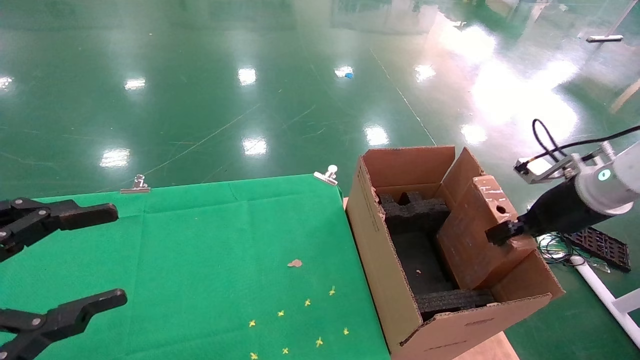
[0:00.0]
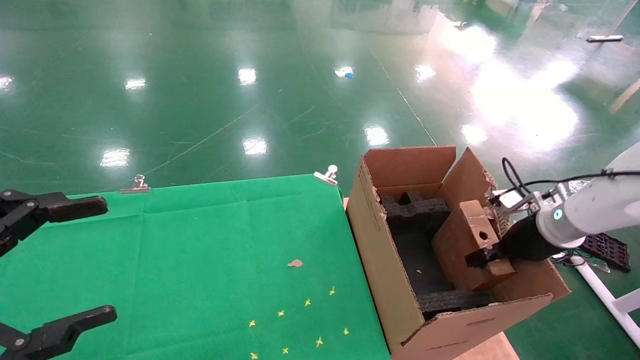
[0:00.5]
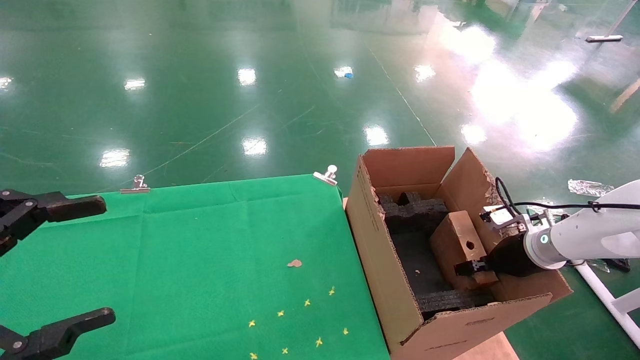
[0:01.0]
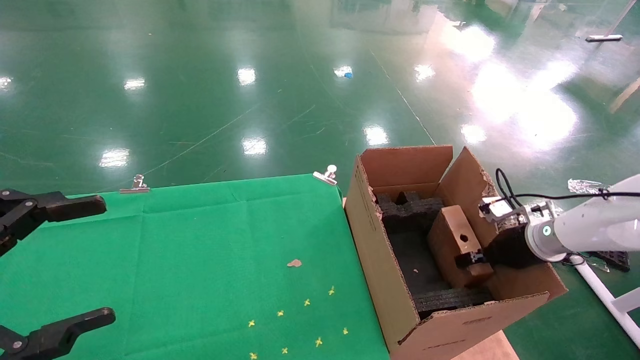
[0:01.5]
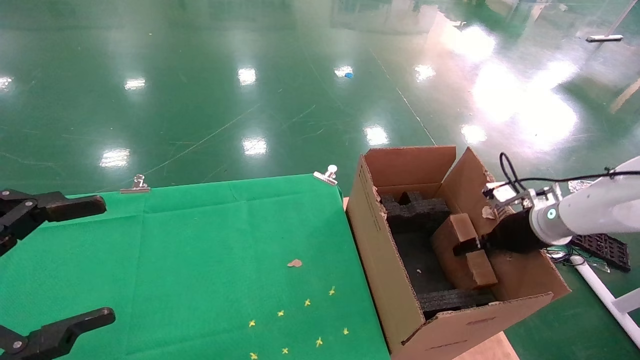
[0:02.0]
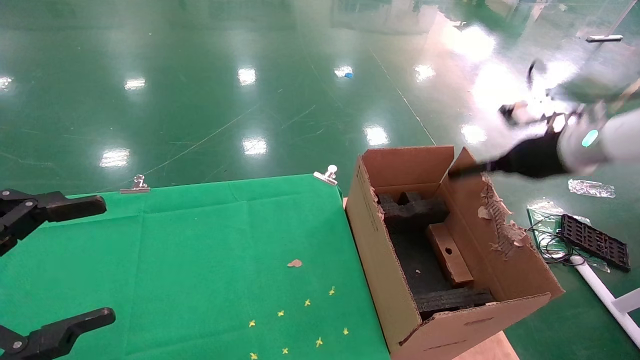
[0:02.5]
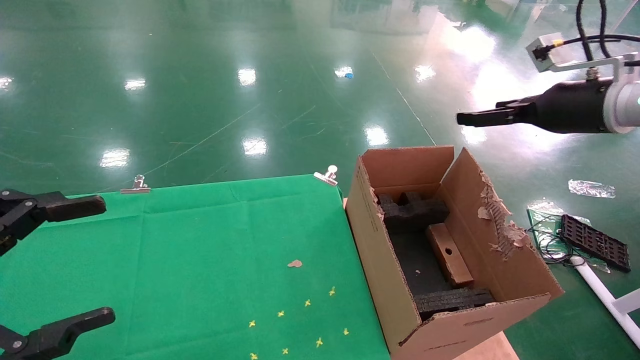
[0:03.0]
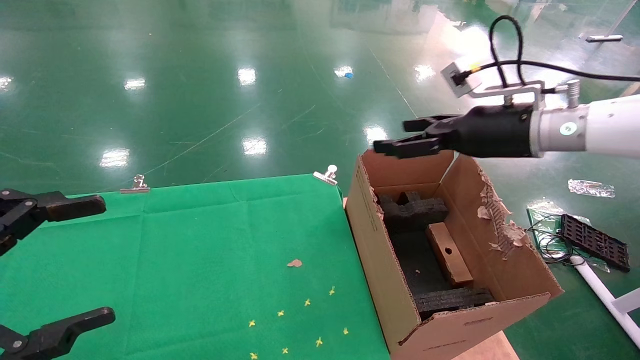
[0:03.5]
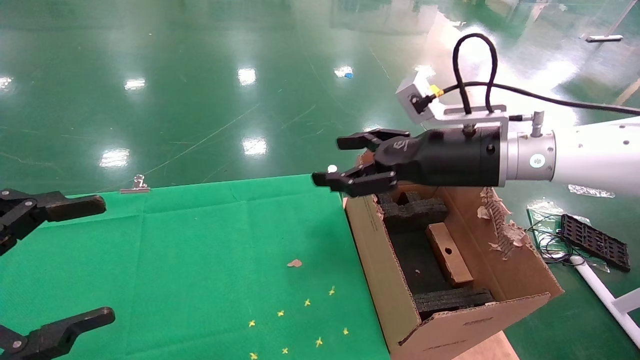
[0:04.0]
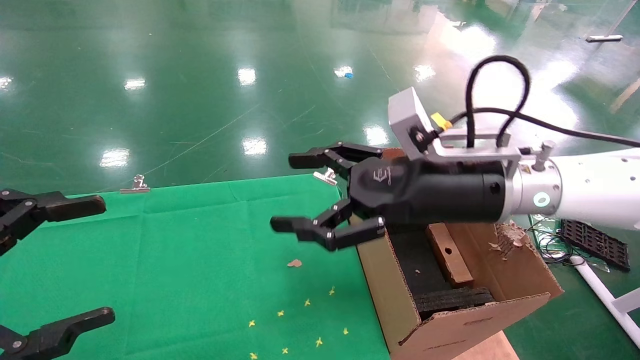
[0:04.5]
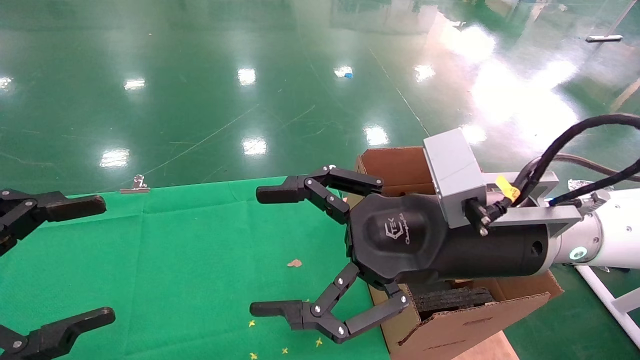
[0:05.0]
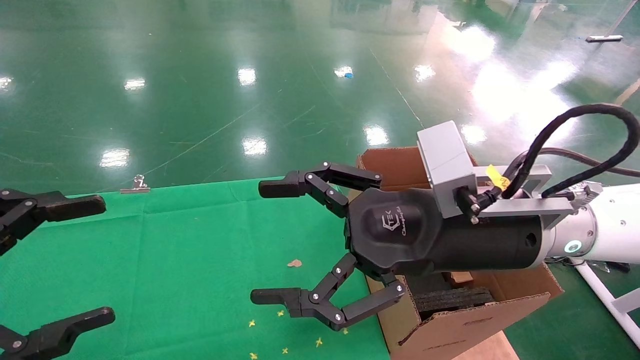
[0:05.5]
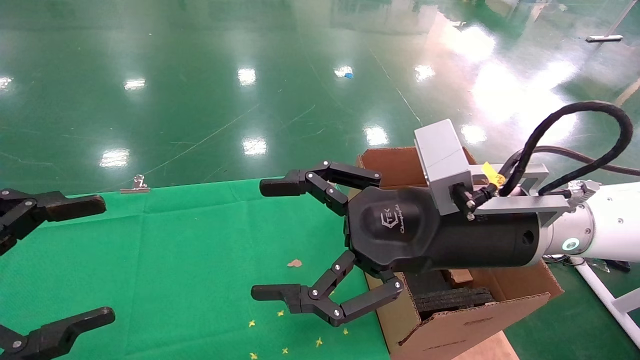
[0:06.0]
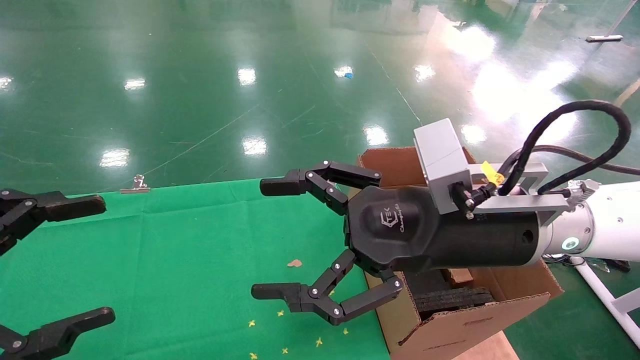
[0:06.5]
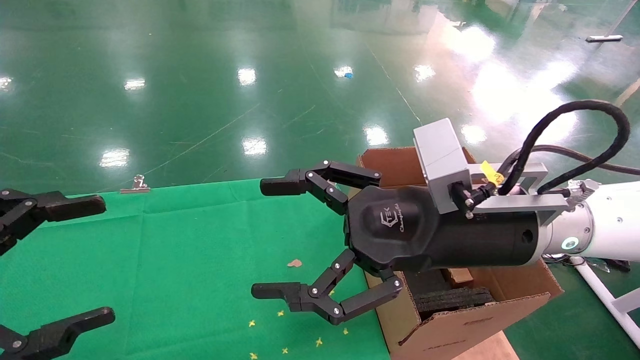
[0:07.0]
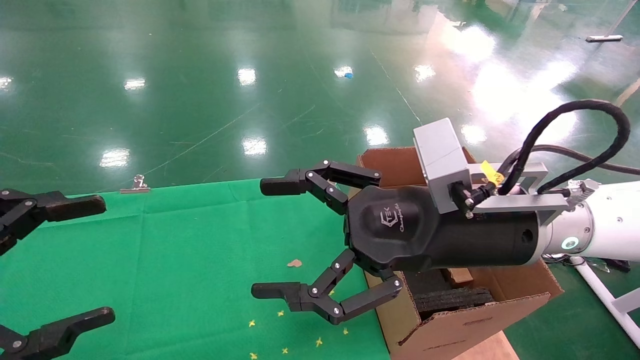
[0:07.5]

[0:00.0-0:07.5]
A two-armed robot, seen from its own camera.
Task of the whole recording: using a robotic arm to pick up a cardboard box and palace it the carton.
Step, 0:00.0 to 0:02.5: Place the mouse and the power cord paper box into the container.
0:00.0 to 0:02.0: The right gripper goes roughly 10 cm downward and forward, and opens up. The left gripper opens up.
0:02.0 to 0:04.0: The right gripper heads to the left and upward, covering roughly 25 cm, and opens its fingers.
0:04.0 to 0:05.5: The right gripper shifts some 10 cm backward and to the left.
0:05.5 to 0:07.5: Neither gripper changes place.
